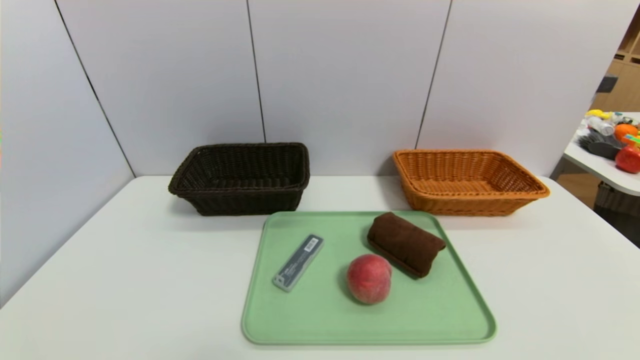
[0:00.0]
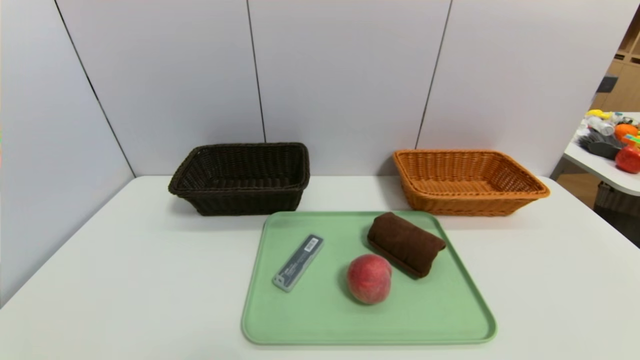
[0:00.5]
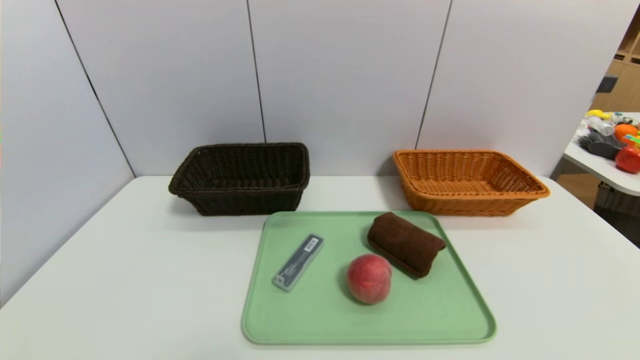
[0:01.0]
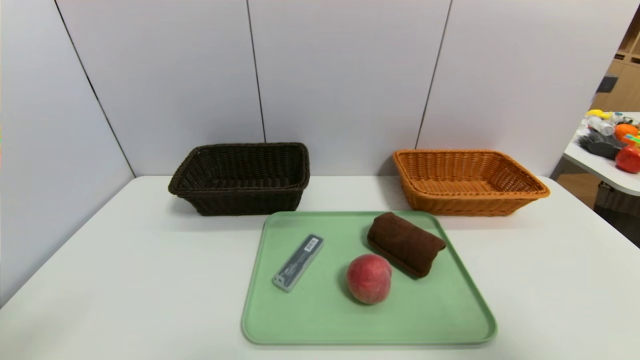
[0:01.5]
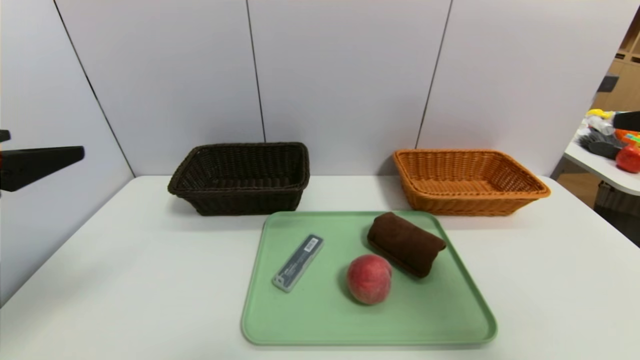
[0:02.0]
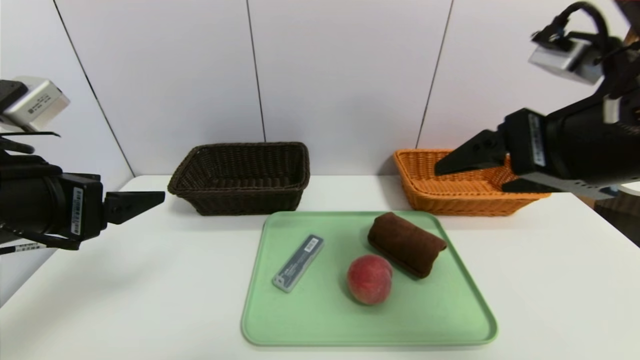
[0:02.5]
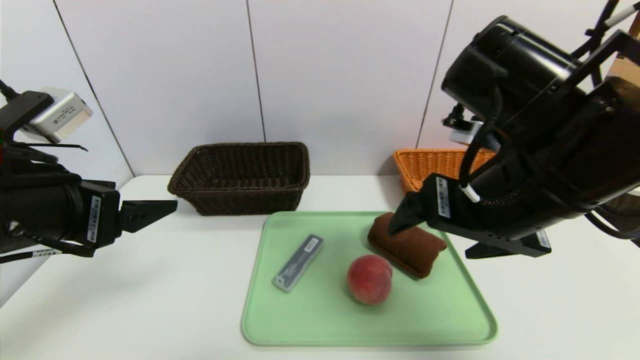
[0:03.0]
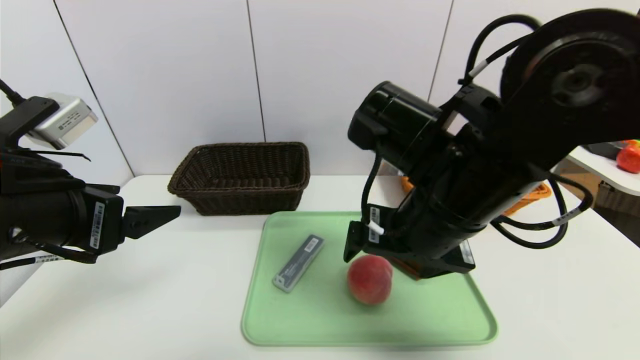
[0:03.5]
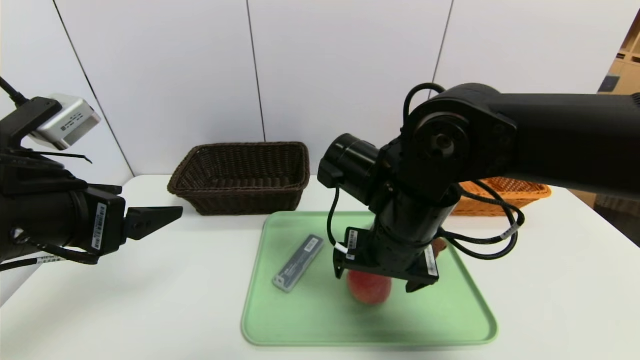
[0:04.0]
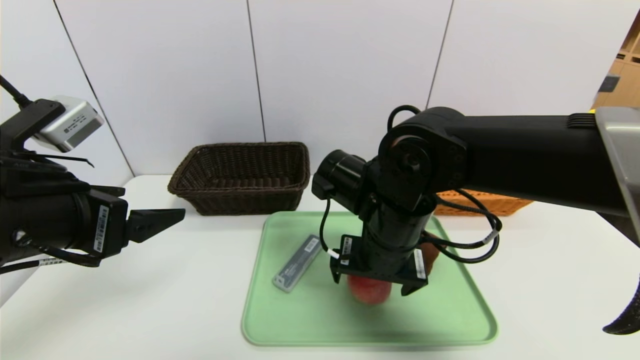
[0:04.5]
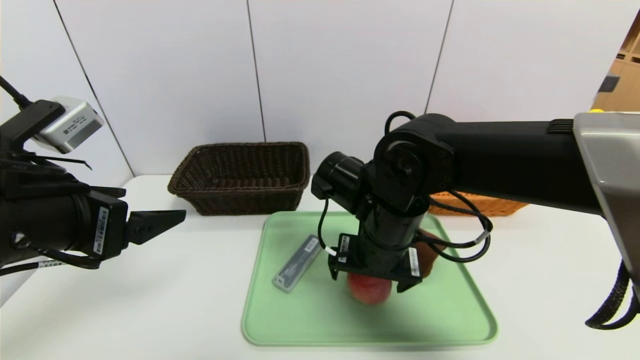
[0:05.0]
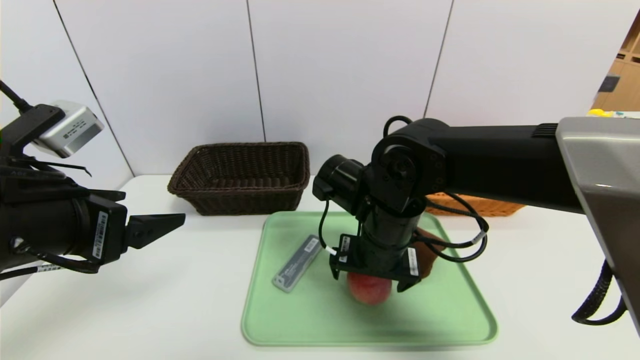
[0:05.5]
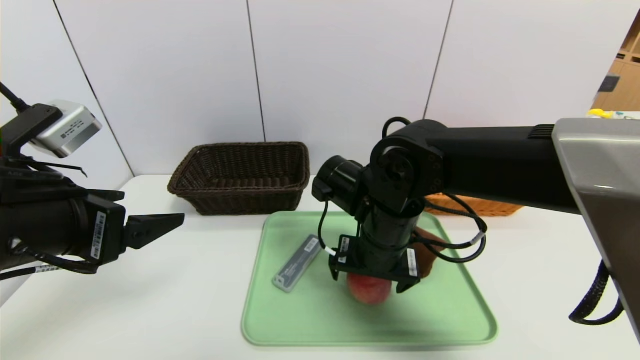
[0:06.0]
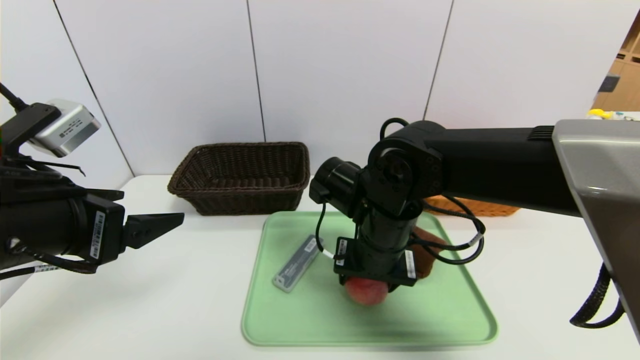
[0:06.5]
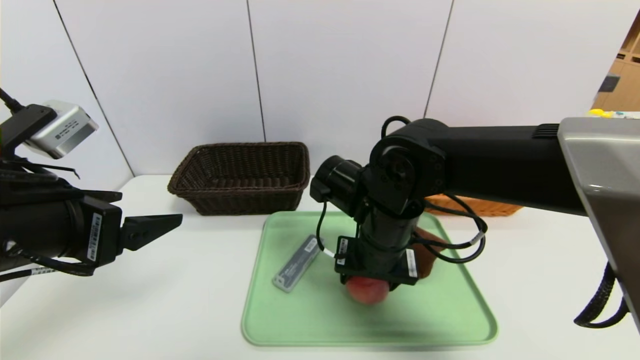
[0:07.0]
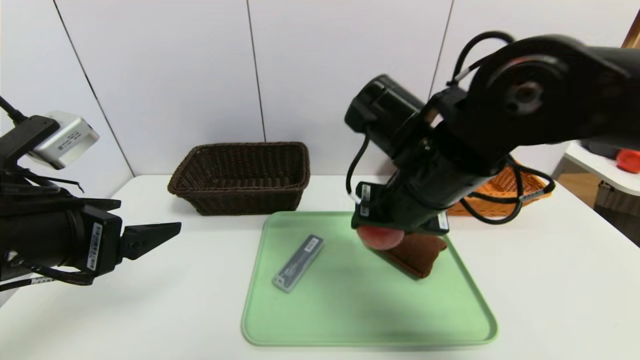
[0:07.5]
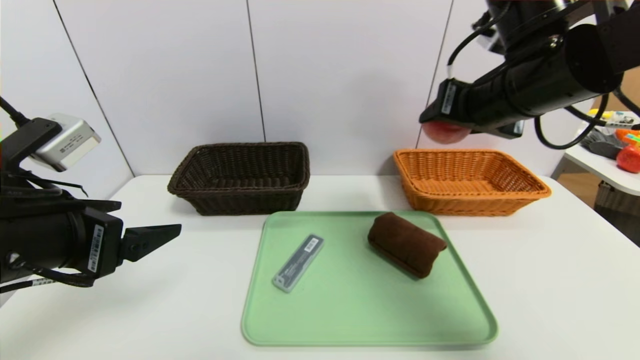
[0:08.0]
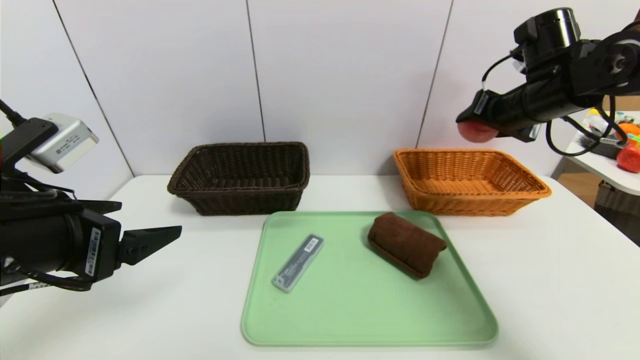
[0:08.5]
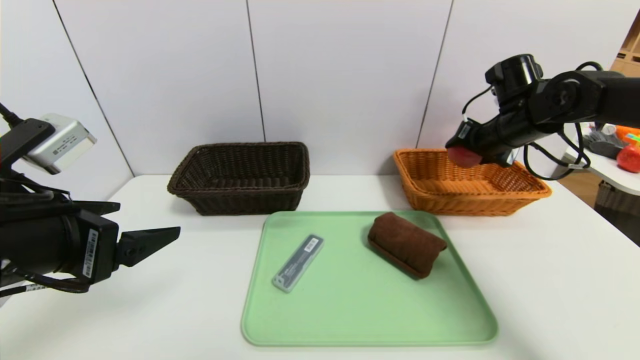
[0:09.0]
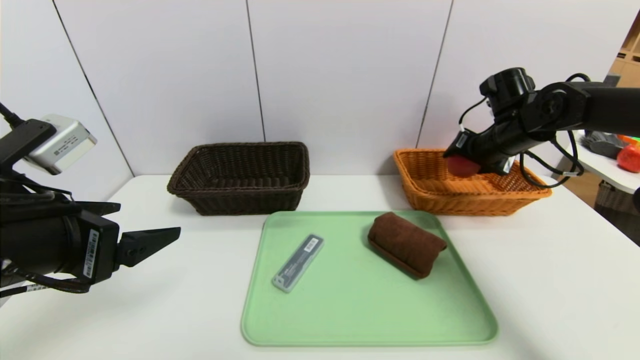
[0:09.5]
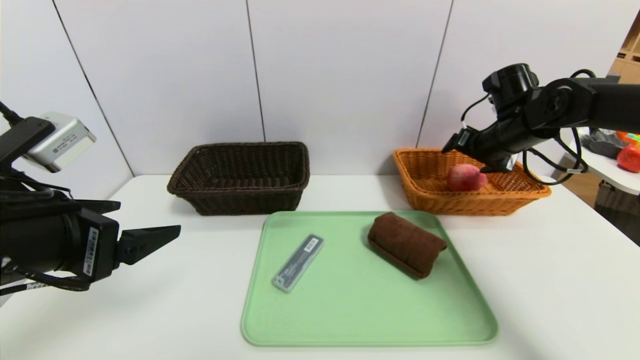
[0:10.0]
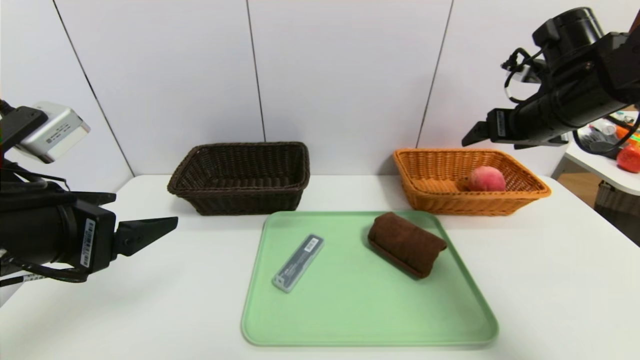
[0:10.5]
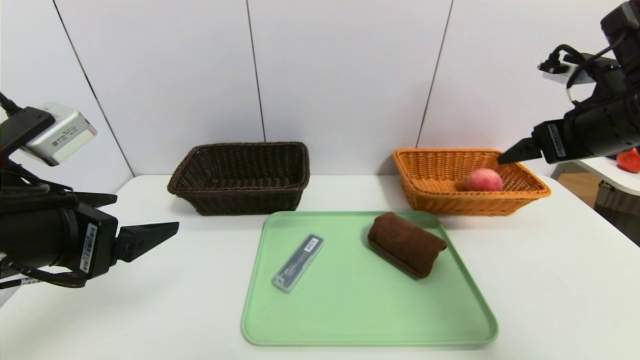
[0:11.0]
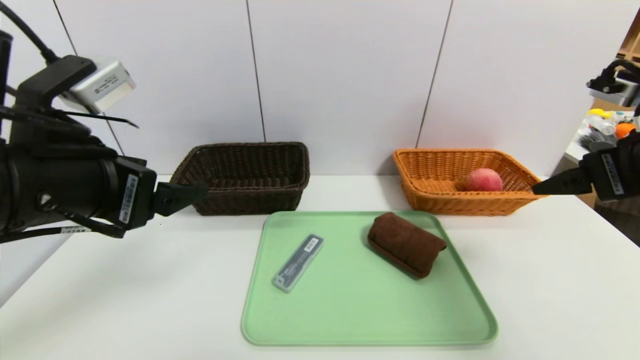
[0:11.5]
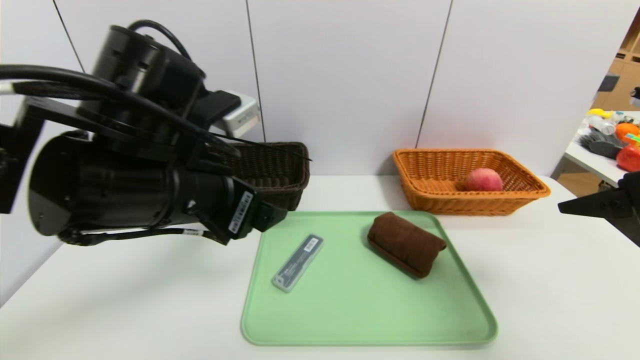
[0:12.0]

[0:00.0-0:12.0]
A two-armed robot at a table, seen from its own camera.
Task of the whole recording: place the food in the right basket with the right gripper, and place the non food items in the left basket with the left gripper.
Step, 0:00.0 to 0:10.0: Grasp the apple and put it in the right basket.
0:00.0 to 0:02.0: Both grippers move upward and forward, roughly 30 cm.
0:02.0 to 0:04.0: The right gripper shifts roughly 30 cm to the left, downward and forward, while the left gripper changes place by some 10 cm.
0:06.0 to 0:08.0: The right gripper heads upward and to the right, covering some 20 cm, and closes its fingers.
0:08.0 to 0:10.0: The right gripper shifts approximately 20 cm forward, to the right and downward, and opens.
0:10.0 to 0:12.0: The right gripper travels backward by some 25 cm. The left gripper heads to the right and forward, covering some 10 cm.

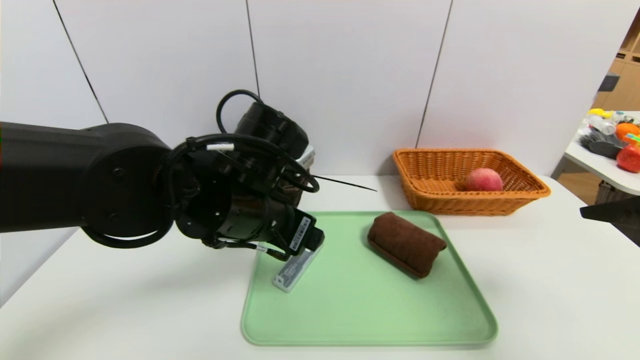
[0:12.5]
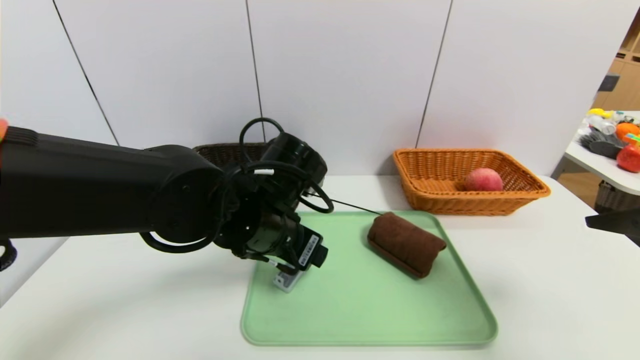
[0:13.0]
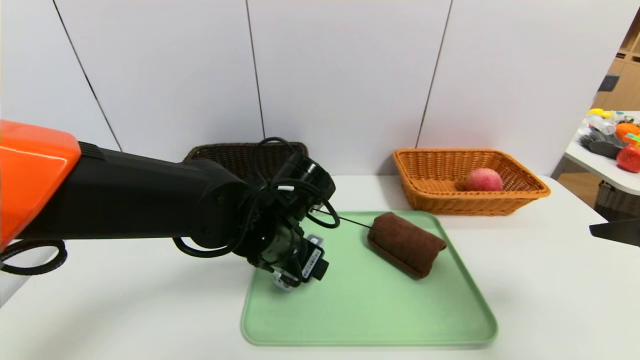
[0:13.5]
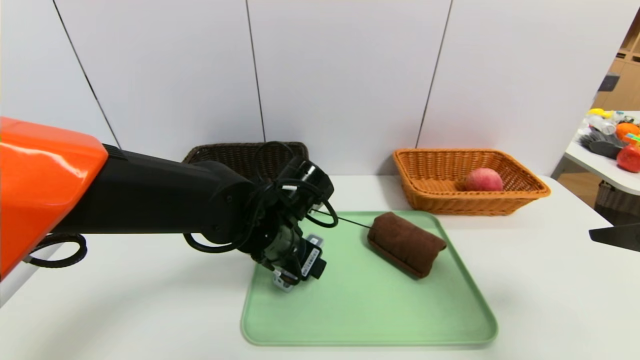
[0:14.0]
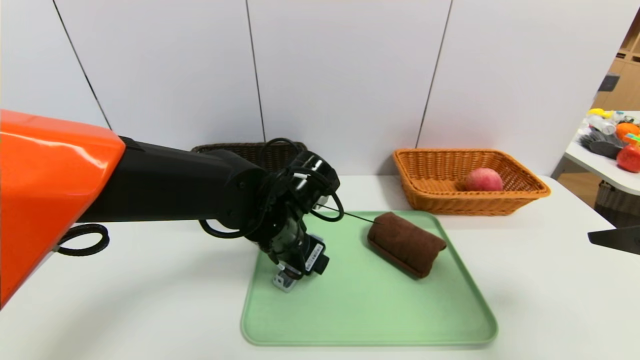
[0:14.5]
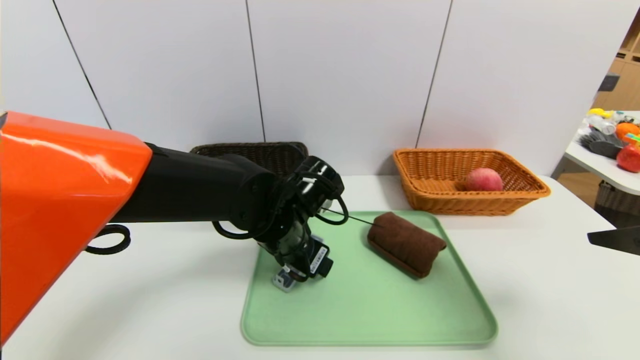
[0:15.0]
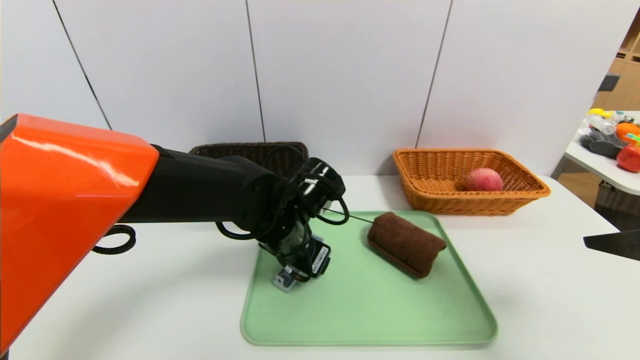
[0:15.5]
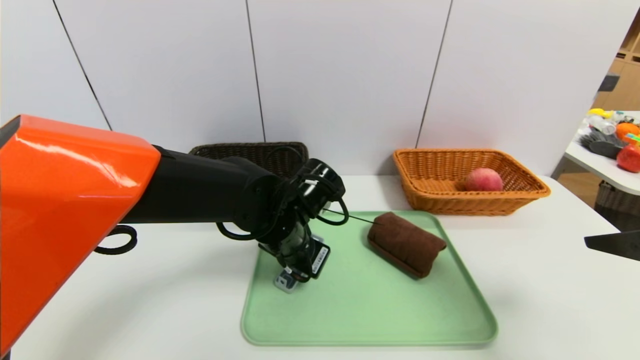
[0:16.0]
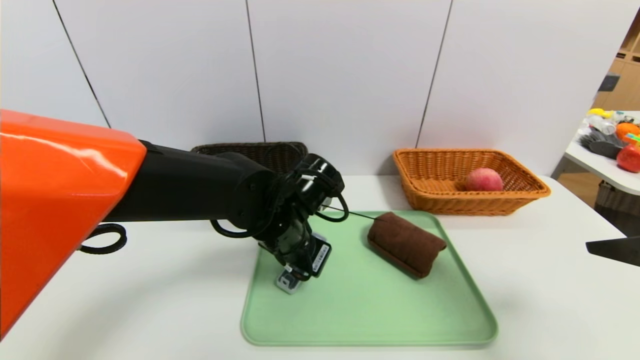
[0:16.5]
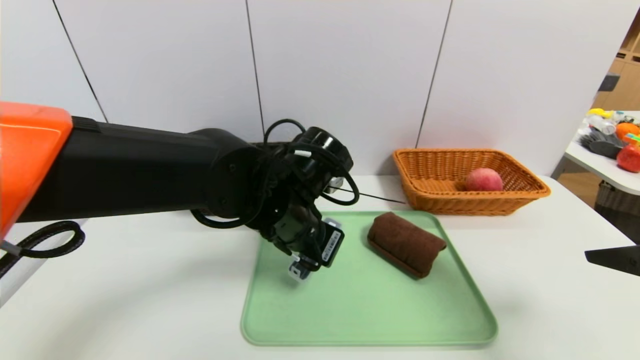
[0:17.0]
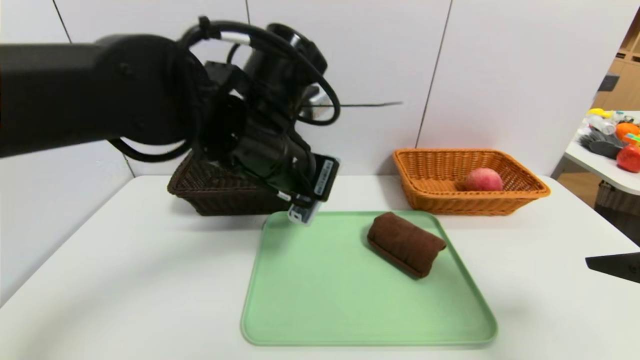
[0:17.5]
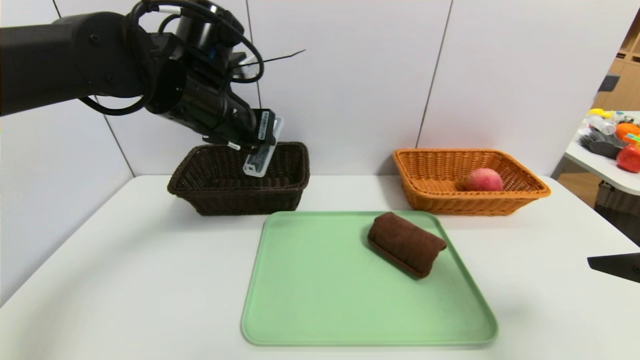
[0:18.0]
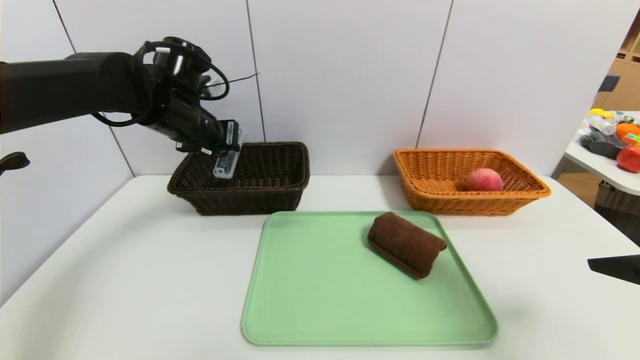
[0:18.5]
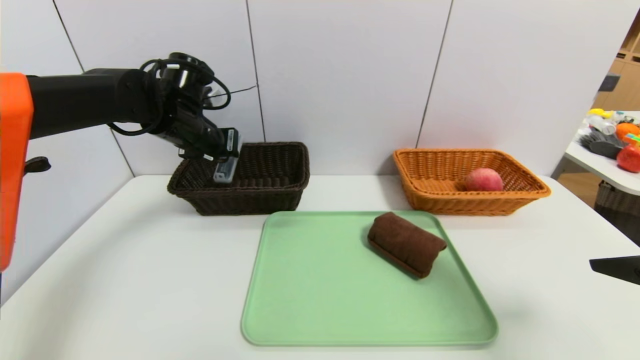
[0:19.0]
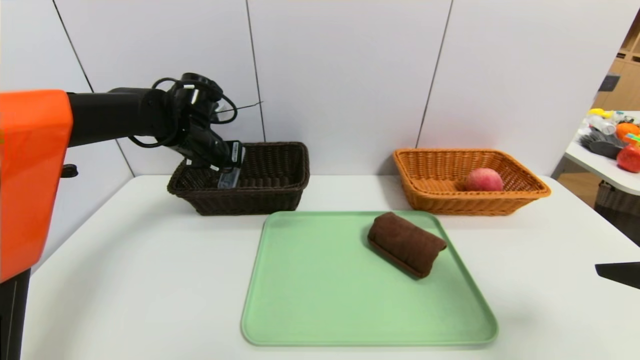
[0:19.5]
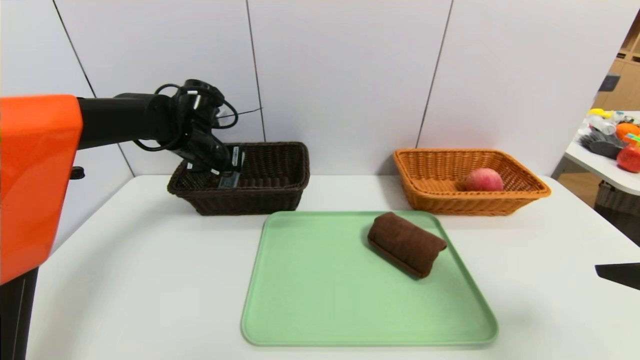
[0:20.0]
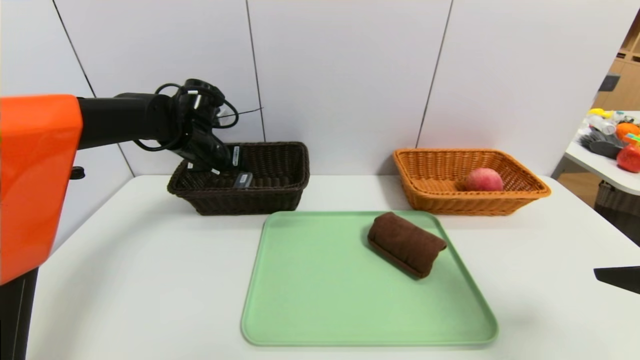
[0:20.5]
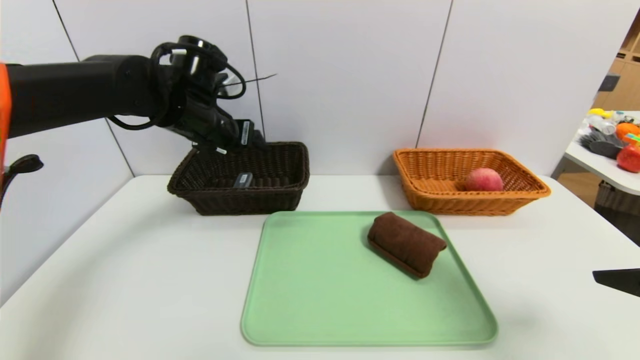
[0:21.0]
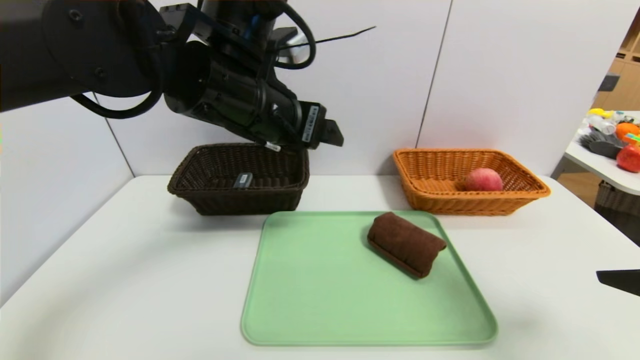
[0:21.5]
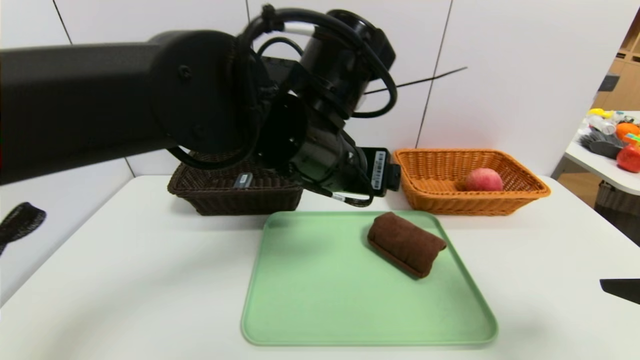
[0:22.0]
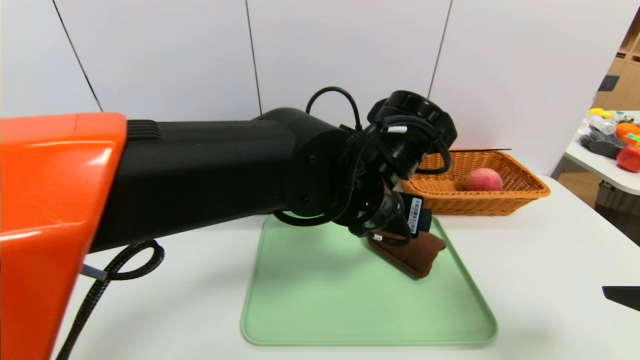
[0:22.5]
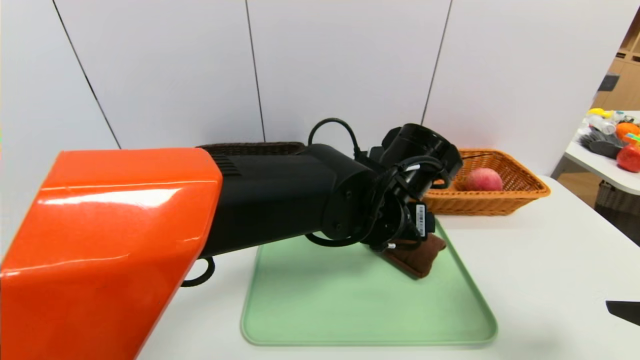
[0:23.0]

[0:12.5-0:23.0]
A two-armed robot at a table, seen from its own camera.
Task of the whole recording: place the food in the right basket with the right gripper, and place the non food items in the left basket with the left gripper.
Step, 0:12.5 to 0:20.5: Grasp the compass and put it in the left basket.
0:12.5 to 0:14.5: The left gripper heads downward, covering about 5 cm.
0:14.5 to 0:16.5: The left gripper closes.
0:16.5 to 0:19.0: The left gripper goes some 20 cm to the left, forward and upward.
0:19.0 to 0:21.0: The left gripper opens up.
0:21.0 to 0:23.0: The left gripper goes some 25 cm to the right and backward.
